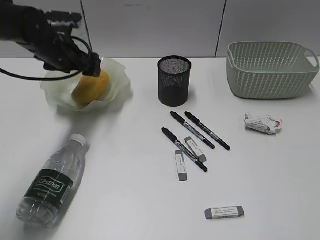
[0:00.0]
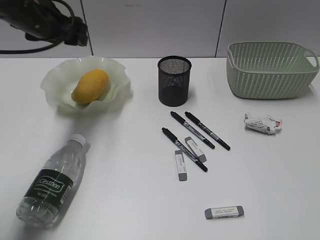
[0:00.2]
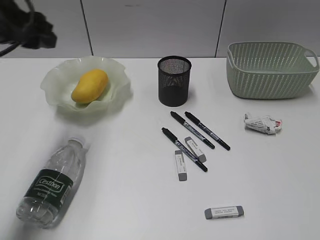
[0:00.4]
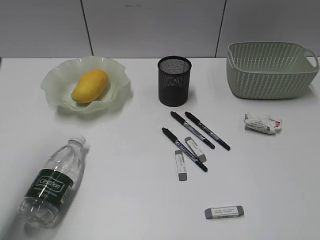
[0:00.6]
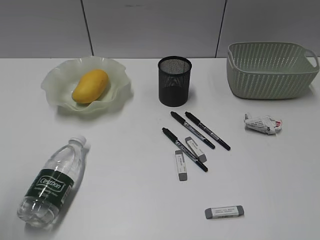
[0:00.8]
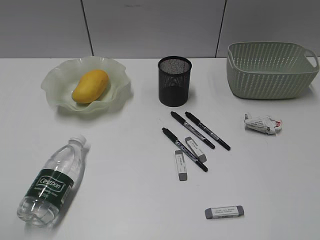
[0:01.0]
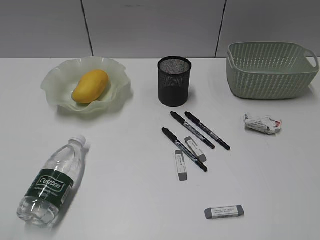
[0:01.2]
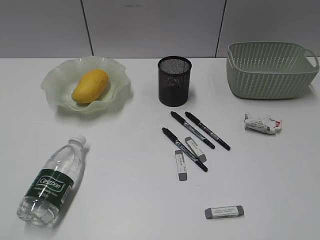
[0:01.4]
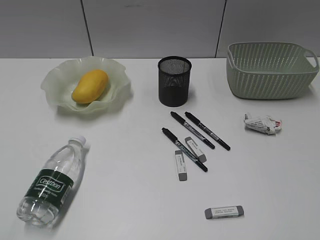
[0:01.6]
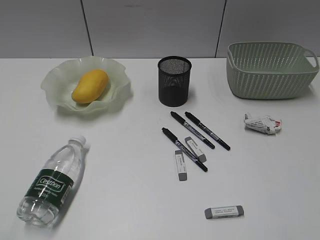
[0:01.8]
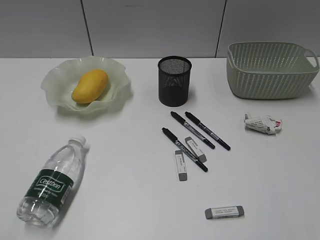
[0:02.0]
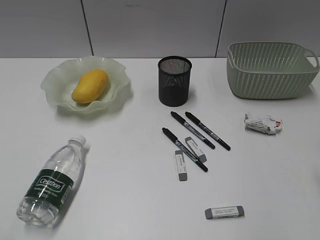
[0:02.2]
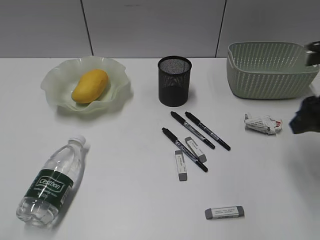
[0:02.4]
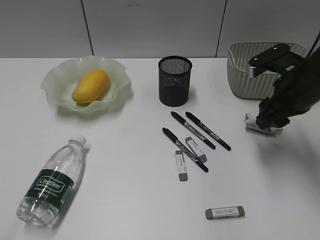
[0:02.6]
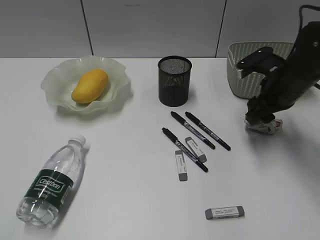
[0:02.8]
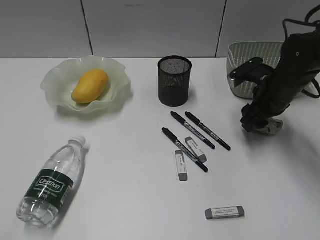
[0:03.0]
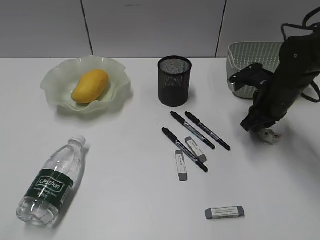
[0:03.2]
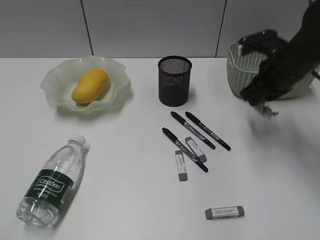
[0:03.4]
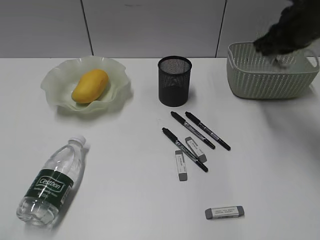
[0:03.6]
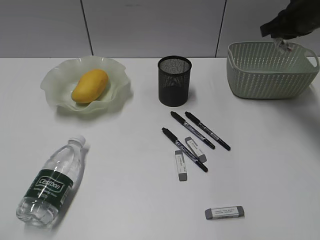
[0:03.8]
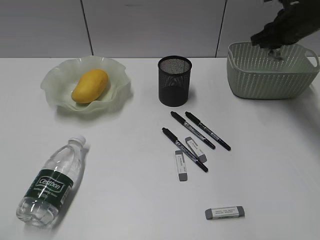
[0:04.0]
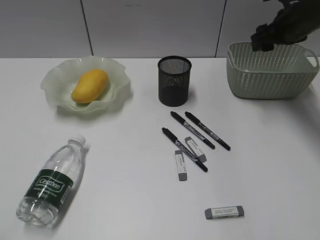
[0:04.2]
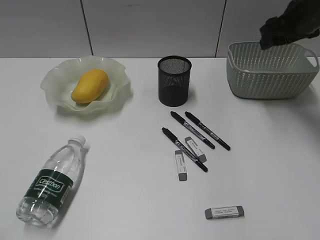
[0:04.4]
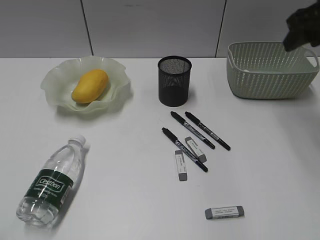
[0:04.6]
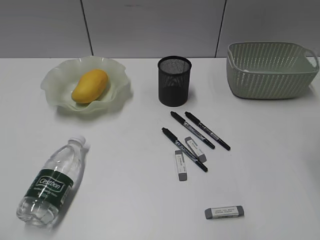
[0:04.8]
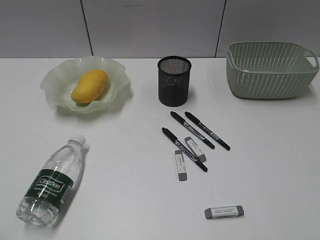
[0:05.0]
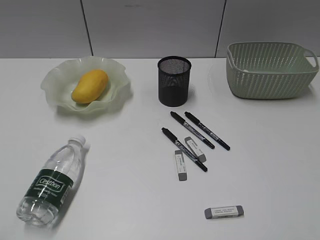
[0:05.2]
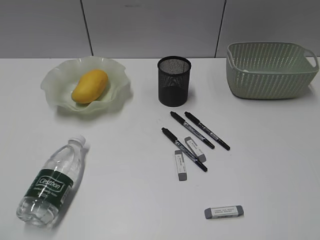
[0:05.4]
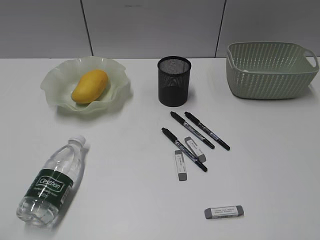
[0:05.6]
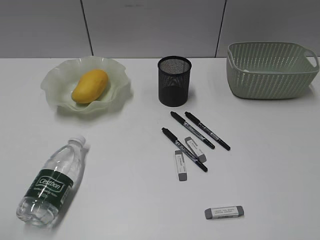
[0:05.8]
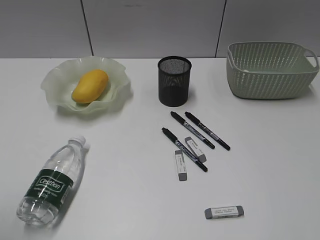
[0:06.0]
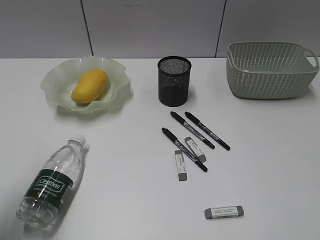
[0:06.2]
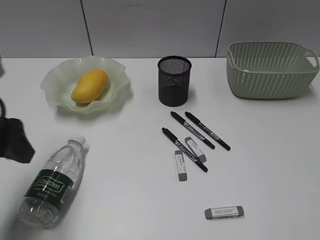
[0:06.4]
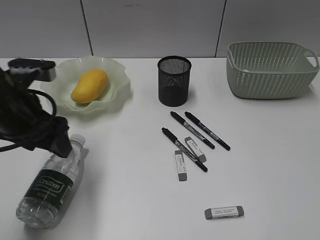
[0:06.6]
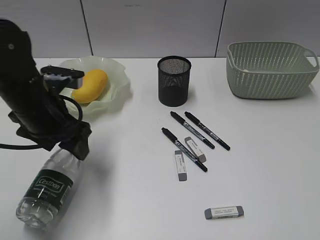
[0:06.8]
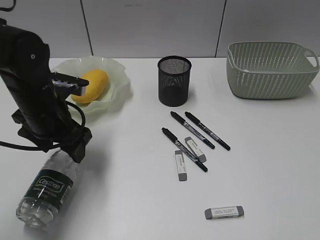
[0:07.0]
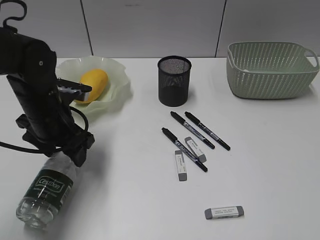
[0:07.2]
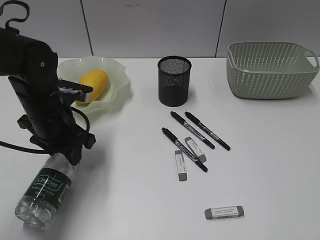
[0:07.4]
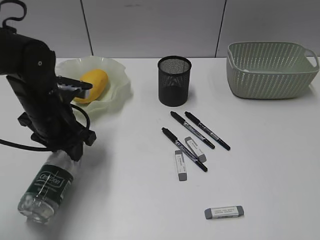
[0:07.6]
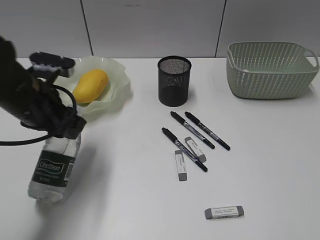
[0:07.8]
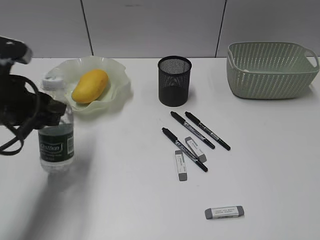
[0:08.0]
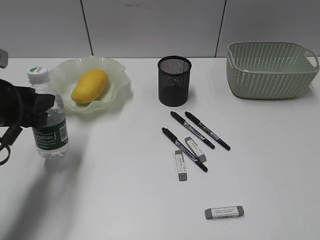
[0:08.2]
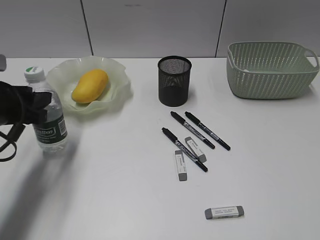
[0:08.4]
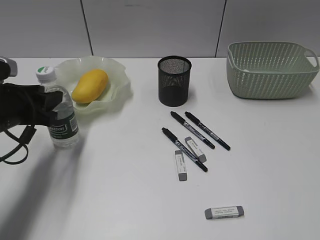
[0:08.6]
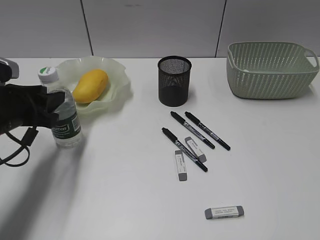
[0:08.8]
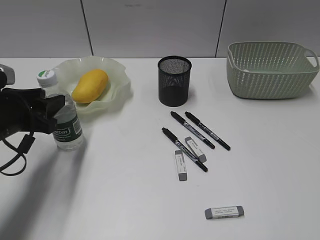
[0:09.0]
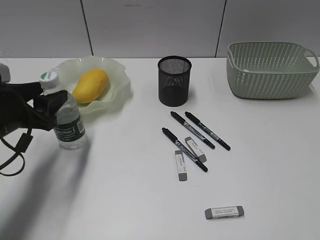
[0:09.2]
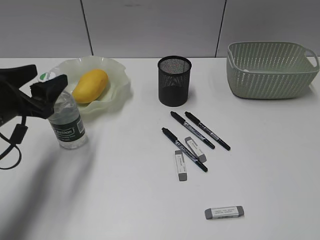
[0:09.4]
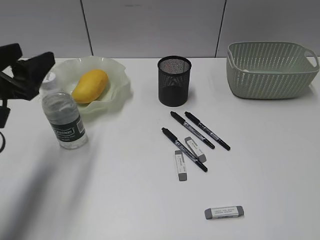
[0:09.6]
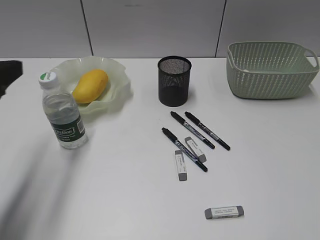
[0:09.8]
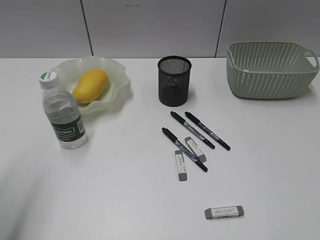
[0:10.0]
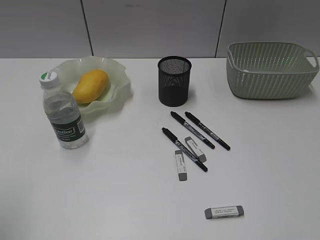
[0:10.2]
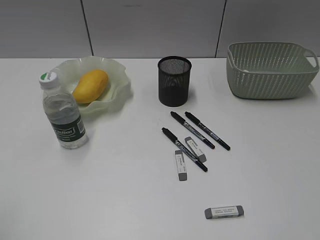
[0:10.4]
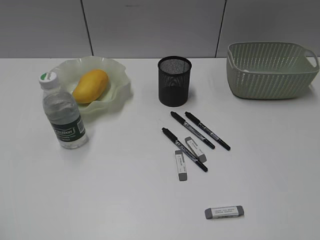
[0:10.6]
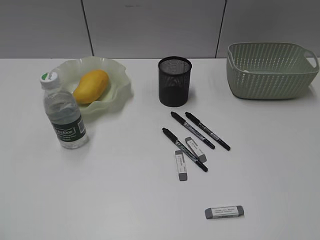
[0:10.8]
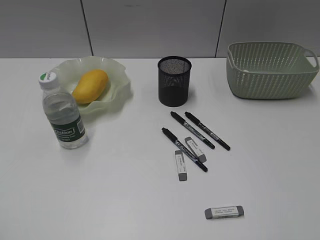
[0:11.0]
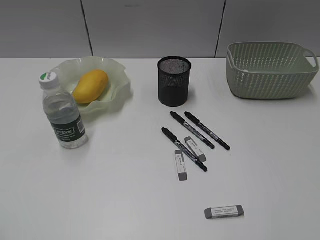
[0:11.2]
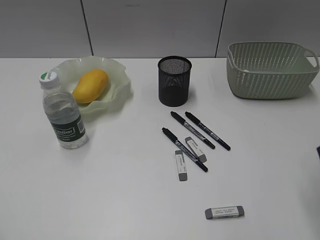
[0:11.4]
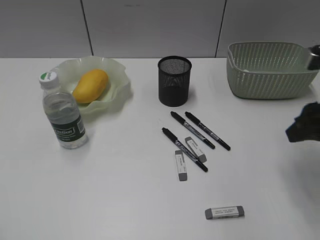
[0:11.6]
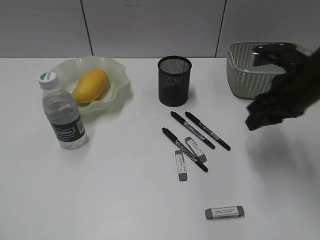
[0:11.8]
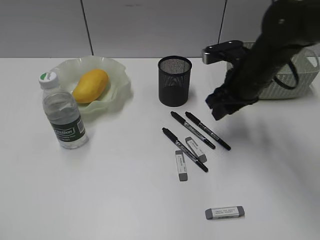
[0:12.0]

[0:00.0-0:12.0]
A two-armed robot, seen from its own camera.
Step, 0:00.2 to 0:03.2: Grasp the waste paper with right gripper.
Step, 0:03.4 to 0:04.2: Place the waste paper in the basket with right gripper.
Step, 0:04.4 to 0:07.4: Grasp the bottle with left gripper.
Step, 0:07.6 to 0:09.4: Stand the bottle with left gripper.
0:00.0 to 0:01.6: The left gripper moves backward, roughly 40 cm, and closes up.
0:01.6 to 0:03.0: The right gripper is displaced forward and downward by some 40 cm.
0:03.0 to 0:04.4: The right gripper goes up and down, approximately 15 cm each way, reversing 2 times, and closes, then opens again.
0:04.4 to 0:06.0: The right gripper heads backward, covering some 40 cm.
0:06.0 to 0:07.6: The left gripper moves forward, downward and to the right, some 30 cm.
0:07.6 to 0:09.0: The left gripper shifts roughly 5 cm to the left.
0:09.0 to 0:10.4: The left gripper heads backward and upward, covering some 25 cm.
0:10.4 to 0:12.0: The right gripper travels forward and to the left by approximately 40 cm.

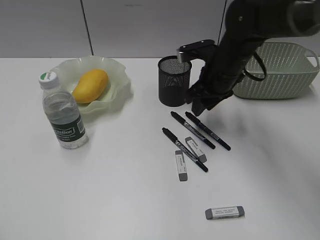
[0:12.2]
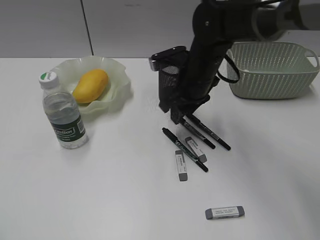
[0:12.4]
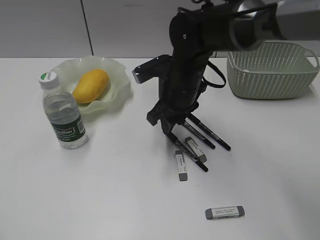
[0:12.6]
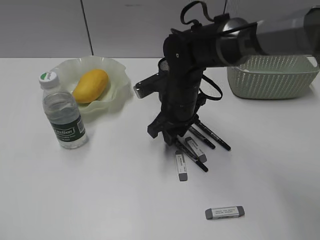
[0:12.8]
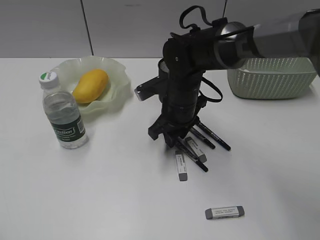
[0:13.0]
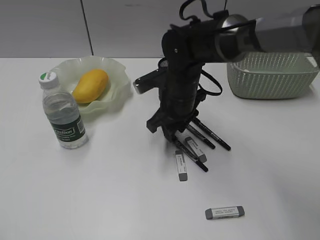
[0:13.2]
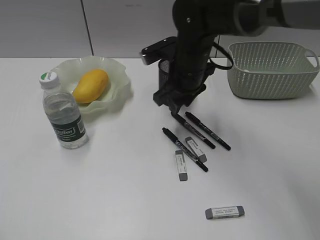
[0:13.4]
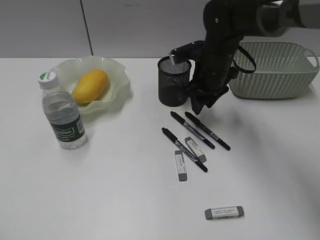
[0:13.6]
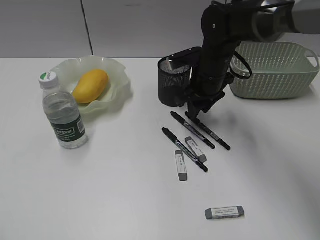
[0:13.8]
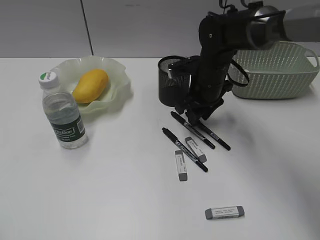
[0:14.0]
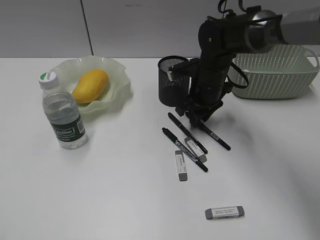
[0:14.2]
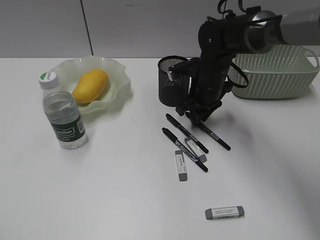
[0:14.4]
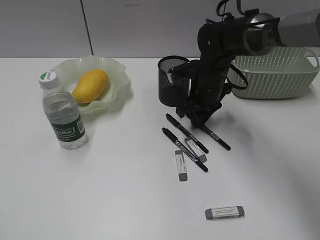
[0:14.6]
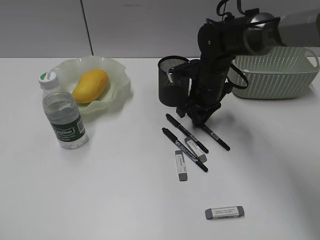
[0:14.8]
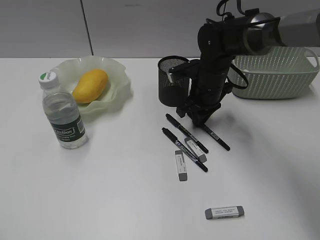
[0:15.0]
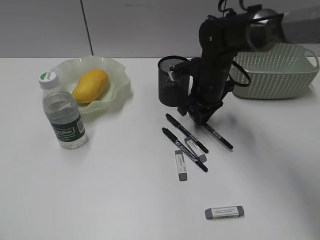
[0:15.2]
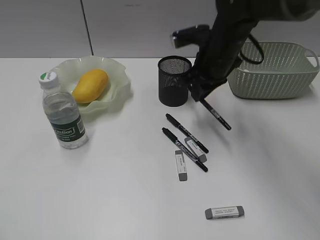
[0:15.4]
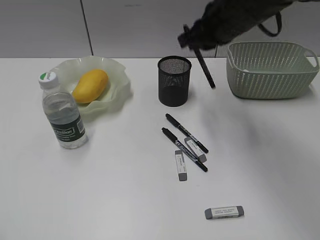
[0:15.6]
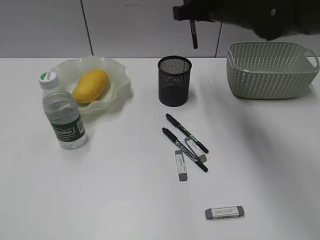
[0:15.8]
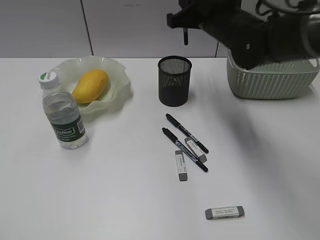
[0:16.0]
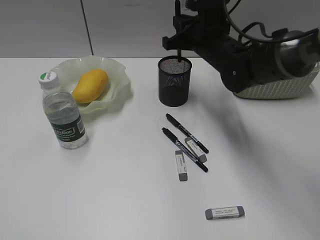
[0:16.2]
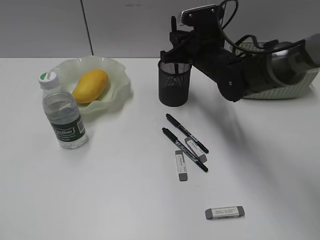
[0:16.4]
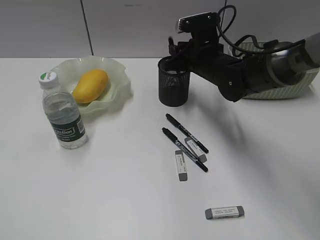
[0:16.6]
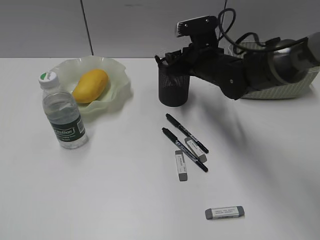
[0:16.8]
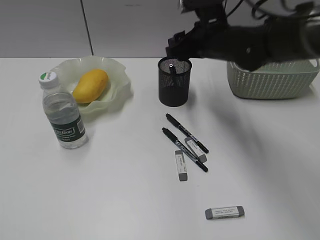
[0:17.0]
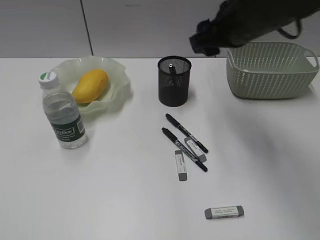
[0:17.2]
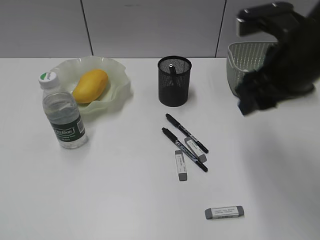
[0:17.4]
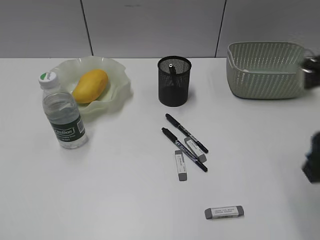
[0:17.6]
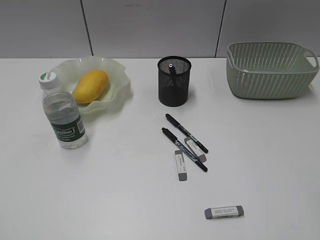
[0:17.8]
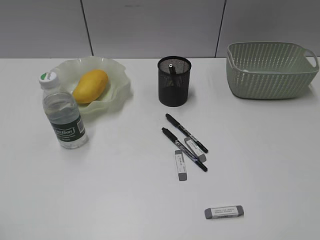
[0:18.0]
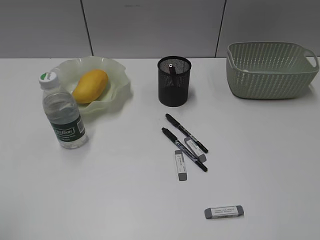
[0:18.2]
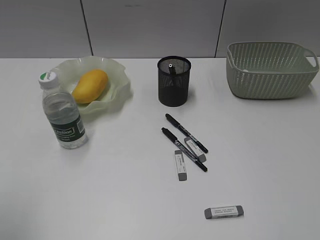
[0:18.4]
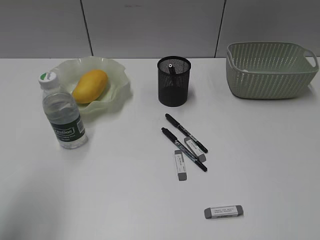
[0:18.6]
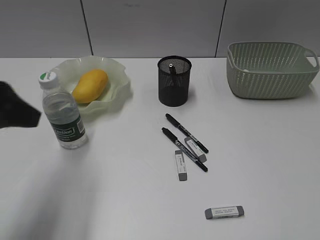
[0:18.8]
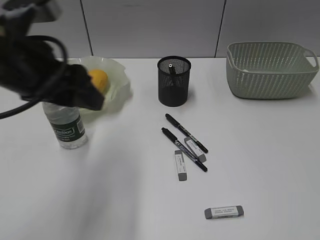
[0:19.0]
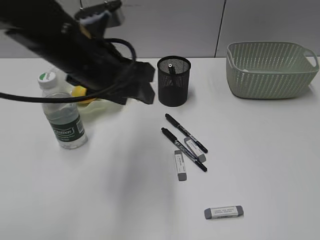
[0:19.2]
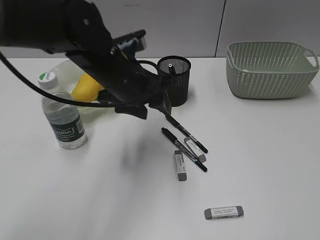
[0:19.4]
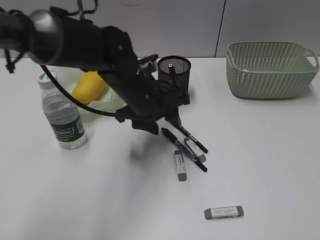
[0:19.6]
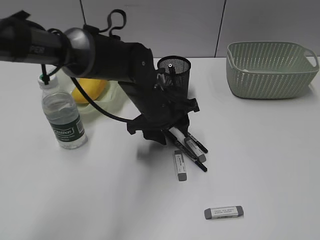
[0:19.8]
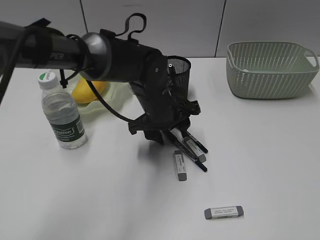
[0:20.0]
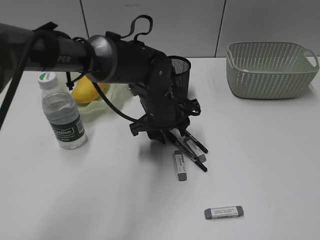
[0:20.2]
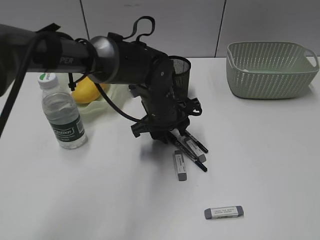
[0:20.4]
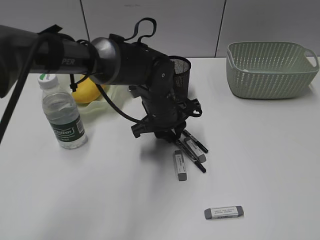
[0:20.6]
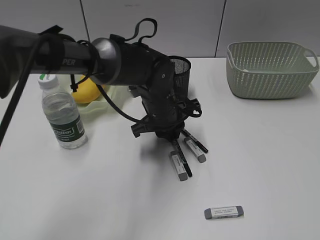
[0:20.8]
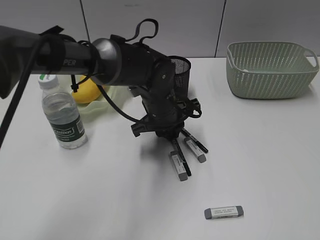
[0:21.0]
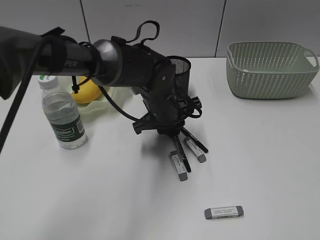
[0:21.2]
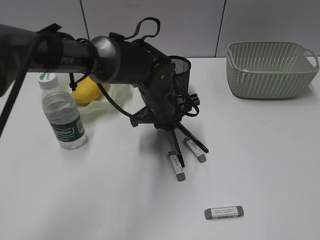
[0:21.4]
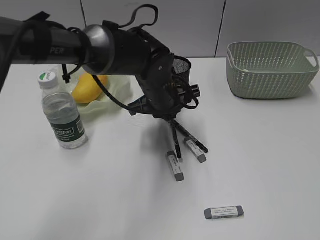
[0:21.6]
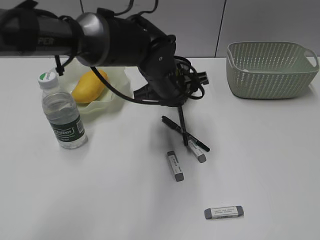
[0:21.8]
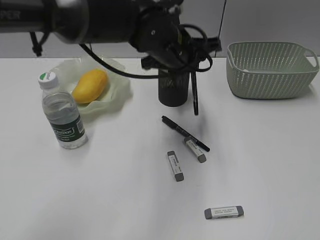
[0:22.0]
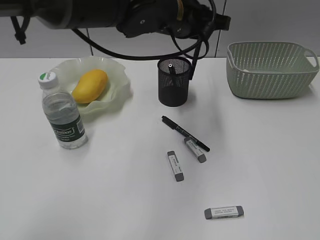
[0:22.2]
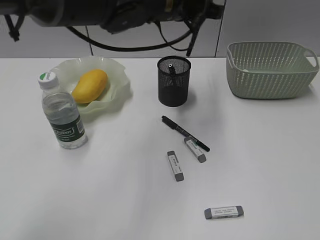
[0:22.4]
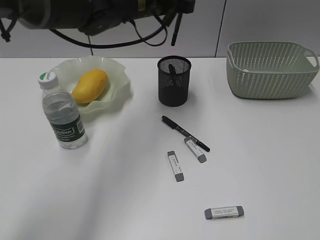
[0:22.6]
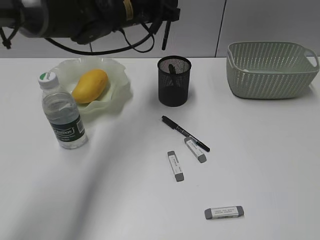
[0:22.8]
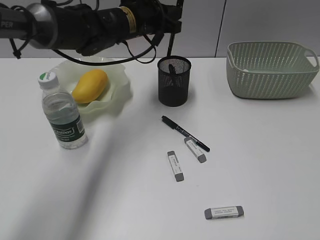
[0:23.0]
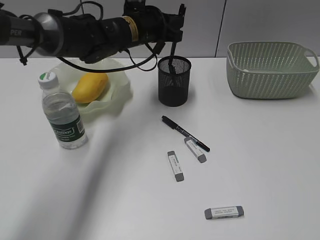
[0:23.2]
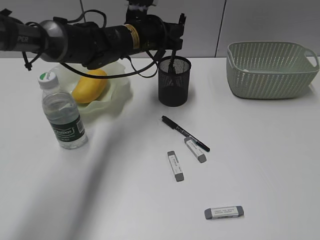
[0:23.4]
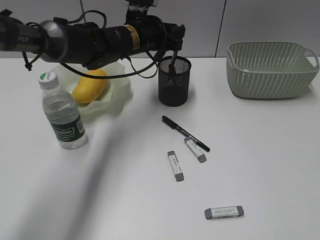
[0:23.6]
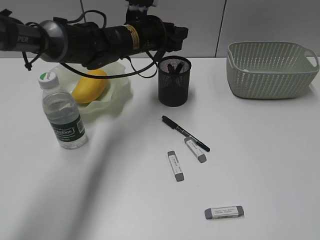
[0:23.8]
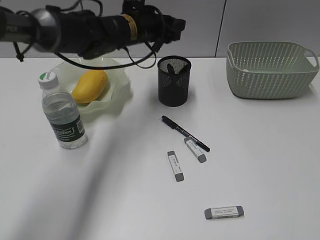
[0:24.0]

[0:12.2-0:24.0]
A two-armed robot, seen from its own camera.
Step, 0:12.2 to 0:15.0: Grasp the black pen with right gripper.
Step, 0:15.2 to 0:17.0: Place the black pen in pen holder with right gripper.
Step, 0:17.2 to 0:20.8: Grasp the black pen with left gripper.
Step, 0:21.0 to 0:23.8: Place the black pen in pen holder with left gripper.
0:13.6 to 0:15.2: The right gripper closes up.
0:15.2 to 0:16.6: The right gripper goes upward and returns, about 15 cm each way.
0:16.6 to 0:18.2: The right gripper shifts about 40 cm backward and to the right, and opens its fingers; the left gripper heads forward, covering some 5 cm.
0:18.2 to 0:19.6: The left gripper goes approximately 40 cm to the right, forward and downward.
0:19.6 to 0:21.0: The left gripper ends up about 5 cm from where it was, and closes up.
0:21.0 to 0:22.6: The left gripper travels upward and forward by approximately 15 cm.
0:22.6 to 0:24.0: The left gripper is displaced downward by roughly 5 cm, and opens its fingers.
